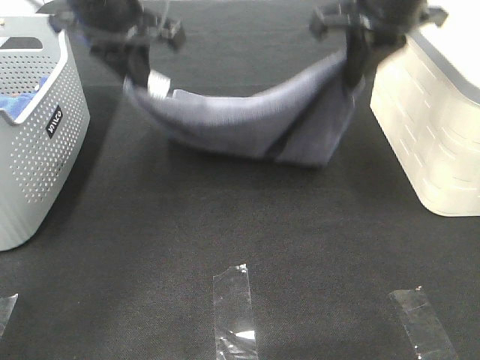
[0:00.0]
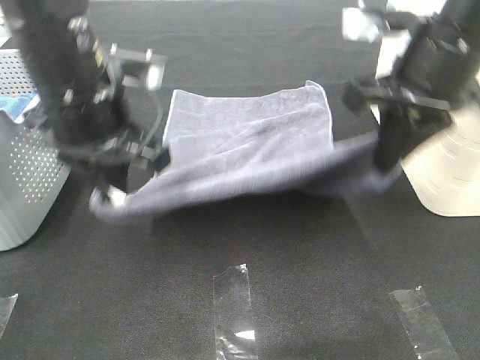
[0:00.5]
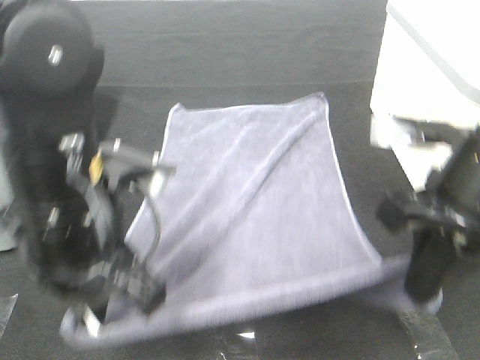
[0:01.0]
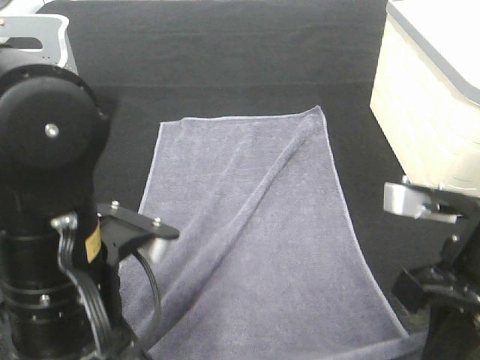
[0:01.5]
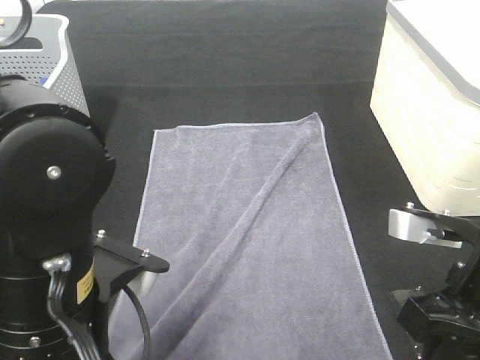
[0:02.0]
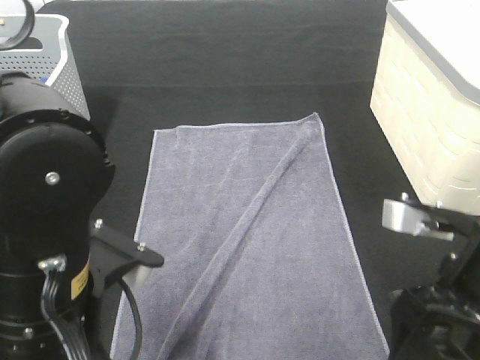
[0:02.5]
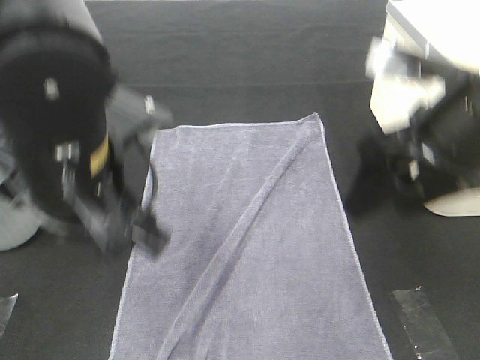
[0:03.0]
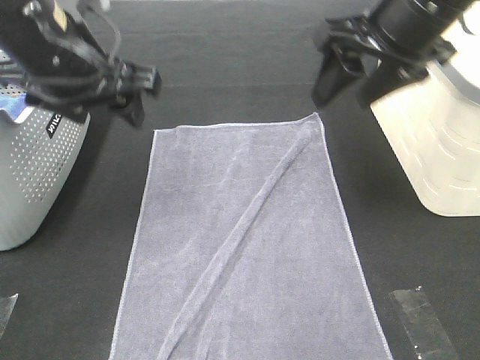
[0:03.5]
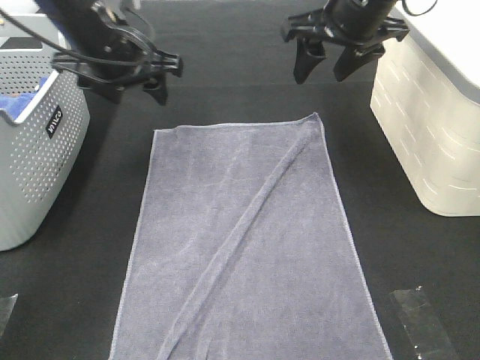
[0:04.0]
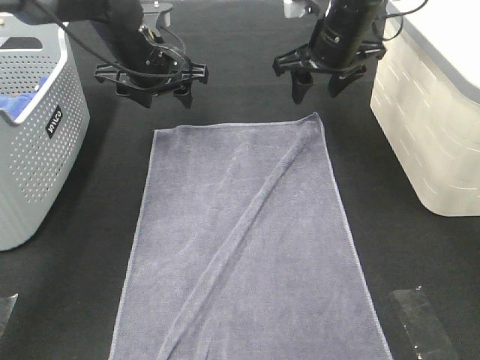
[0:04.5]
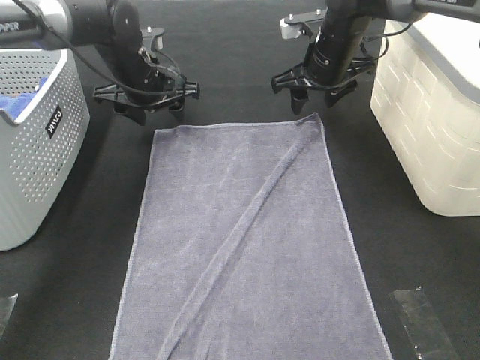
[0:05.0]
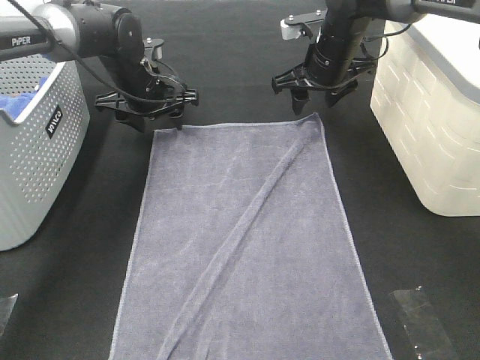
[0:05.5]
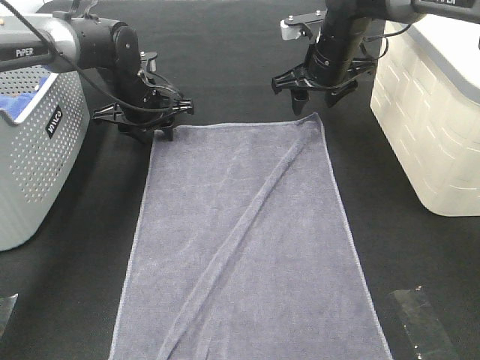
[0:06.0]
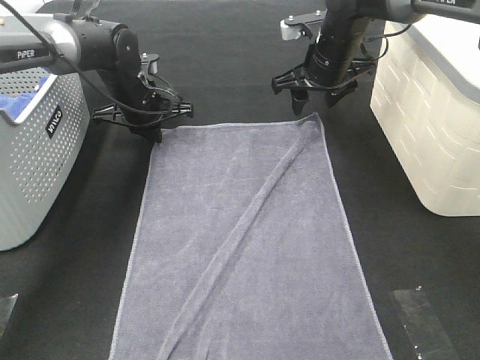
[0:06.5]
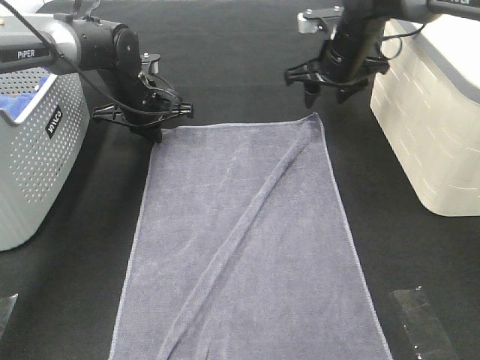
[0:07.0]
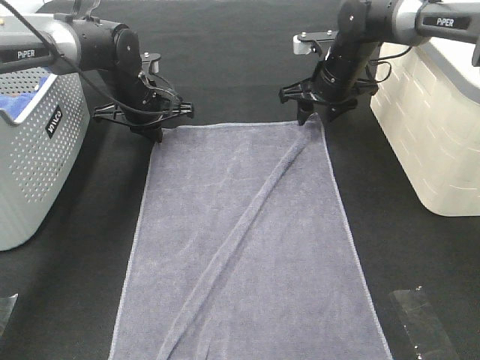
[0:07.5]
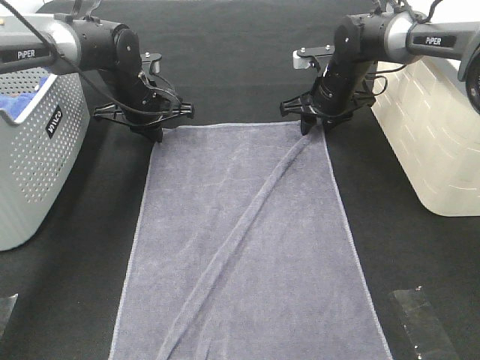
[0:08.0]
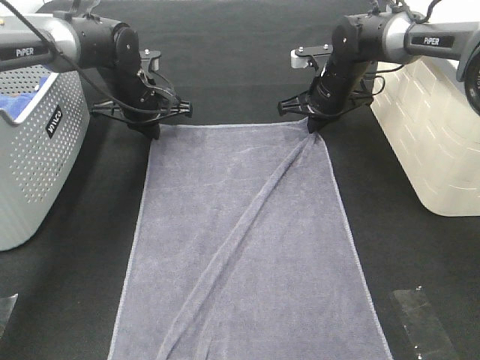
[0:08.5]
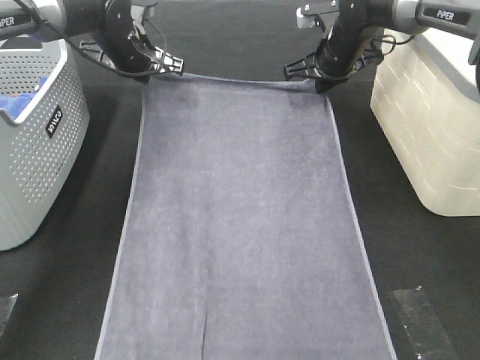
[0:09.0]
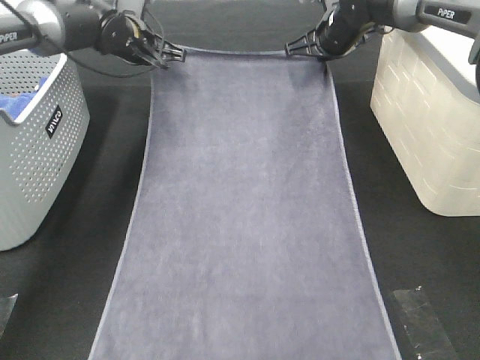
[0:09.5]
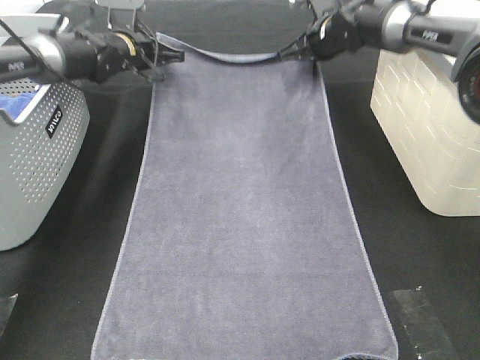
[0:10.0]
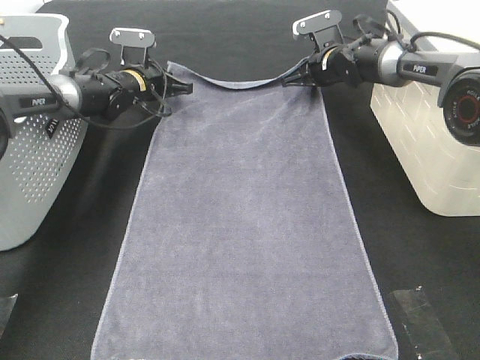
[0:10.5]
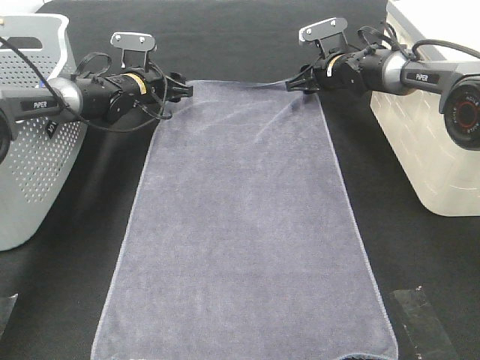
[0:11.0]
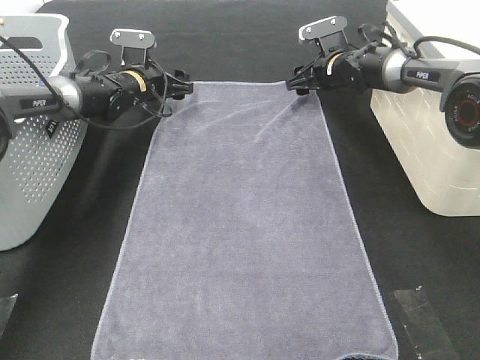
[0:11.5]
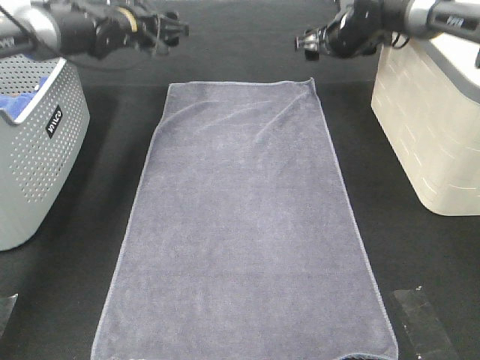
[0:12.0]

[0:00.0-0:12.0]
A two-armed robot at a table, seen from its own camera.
Task of the whole recording: Remove the towel and place it.
Step, 0:00.0 to 0:05.0: Left hand:adjust the gray towel.
Step, 0:00.0 to 0:05.0: Right hand:adjust the gray towel.
0:00.0 to 0:02.0: The left gripper heads backward, covering roughly 25 cm, and opens up. Meanwhile the right gripper moves backward and downward, roughly 25 cm, and opens up.
0:02.0 to 0:04.0: Both grippers travel together forward, some 30 cm.
0:04.0 to 0:06.0: Both grippers move downward and forward, approximately 15 cm.
0:06.0 to 0:08.0: The left gripper closes, while the right gripper travels downward by some 5 cm.
0:08.0 to 0:10.0: The right gripper shifts roughly 5 cm upward, and closes up, while the left gripper goes roughly 5 cm forward.
0:10.0 to 0:12.0: The left gripper is displaced upward by approximately 5 cm, and opens up. The right gripper travels downward and back again, roughly 5 cm each way, and opens up.

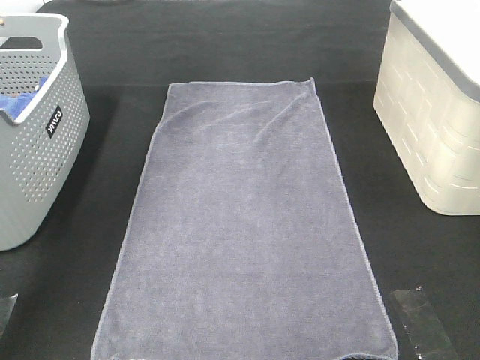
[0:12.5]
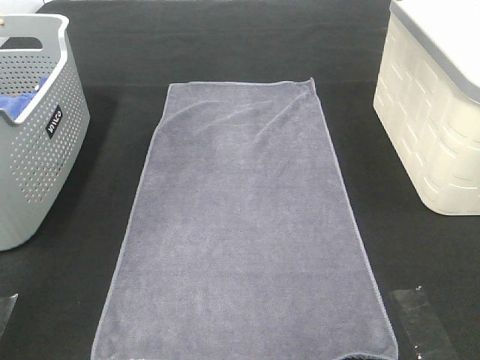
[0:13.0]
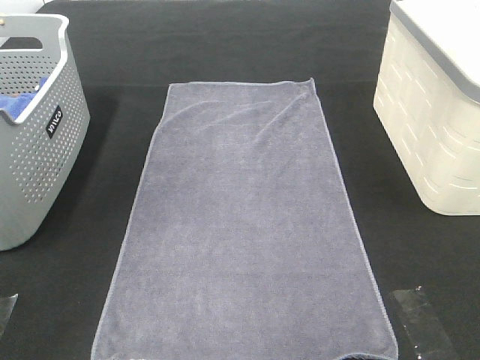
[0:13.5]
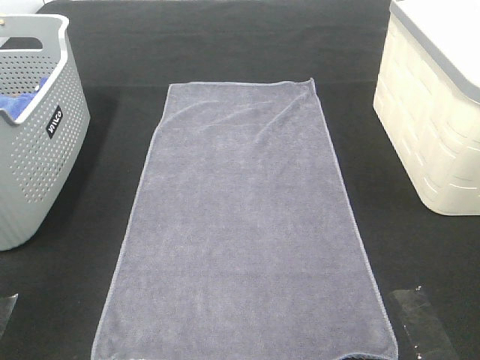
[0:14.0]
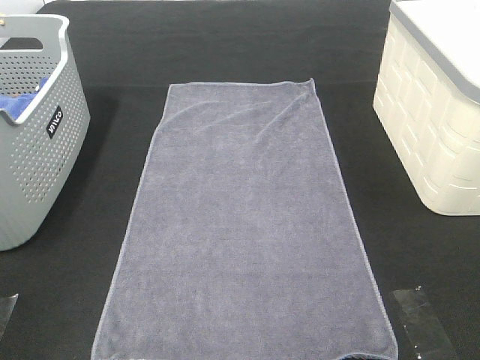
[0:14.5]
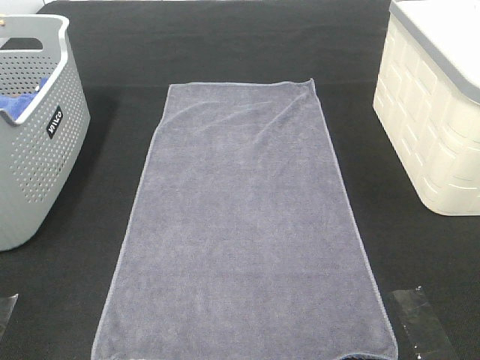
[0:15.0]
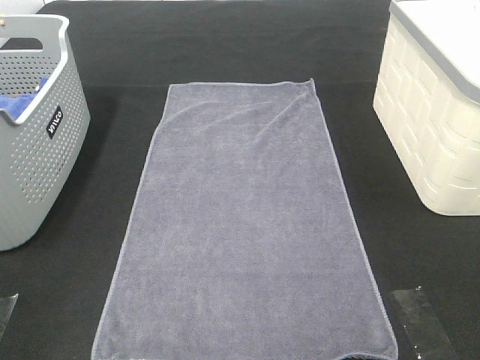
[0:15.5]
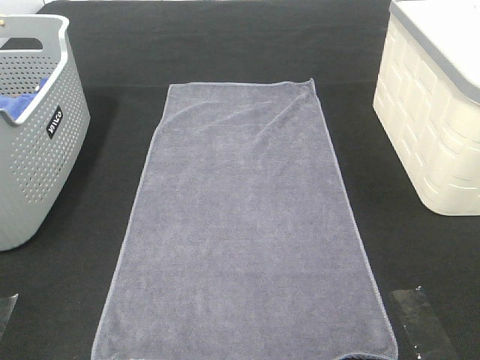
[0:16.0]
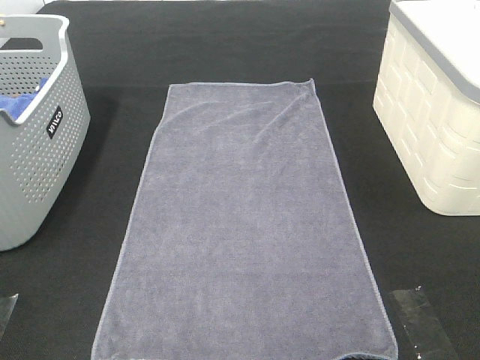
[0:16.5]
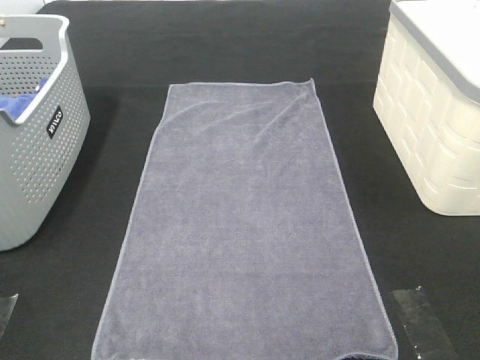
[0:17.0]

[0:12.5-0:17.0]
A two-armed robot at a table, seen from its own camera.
Task of the whole recording: Remove the towel and place it.
0:12.5 to 0:14.5: The grippers both shift backward by about 50 cm.
